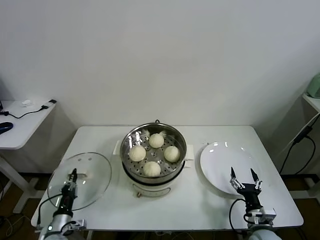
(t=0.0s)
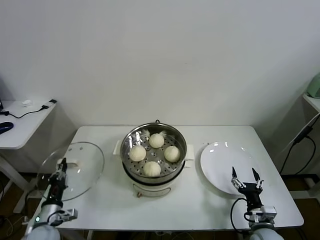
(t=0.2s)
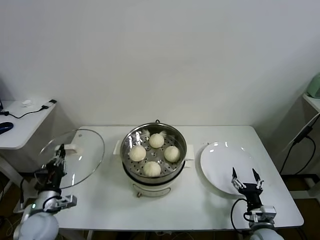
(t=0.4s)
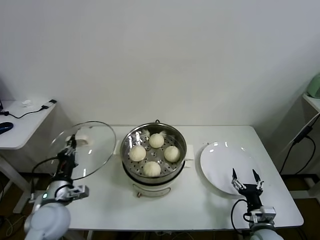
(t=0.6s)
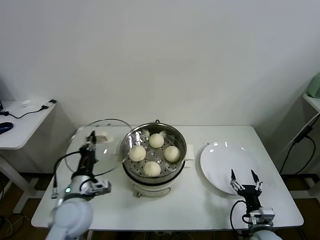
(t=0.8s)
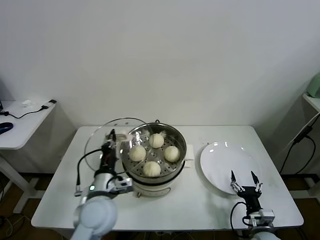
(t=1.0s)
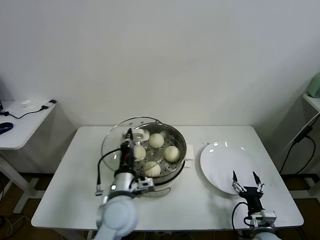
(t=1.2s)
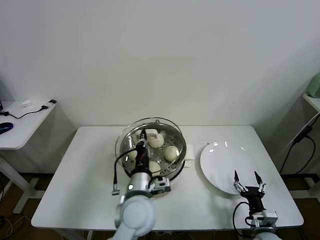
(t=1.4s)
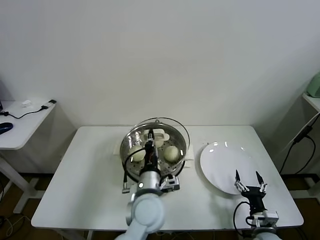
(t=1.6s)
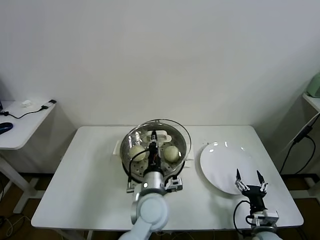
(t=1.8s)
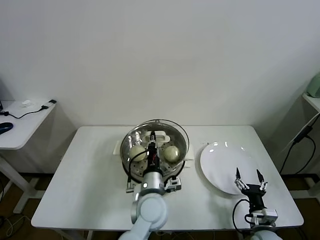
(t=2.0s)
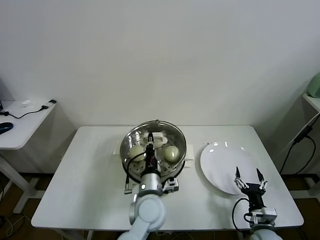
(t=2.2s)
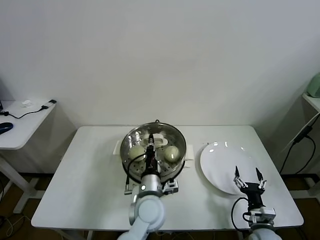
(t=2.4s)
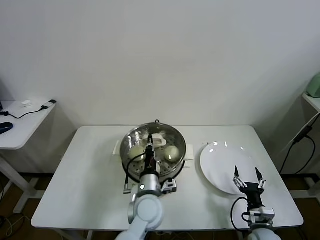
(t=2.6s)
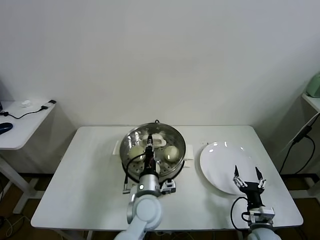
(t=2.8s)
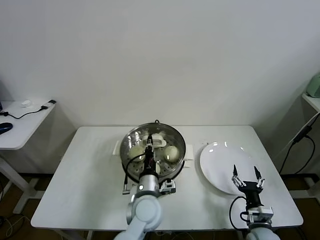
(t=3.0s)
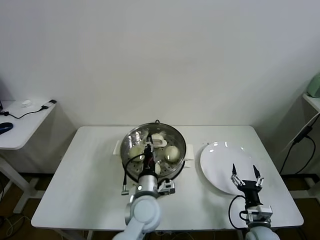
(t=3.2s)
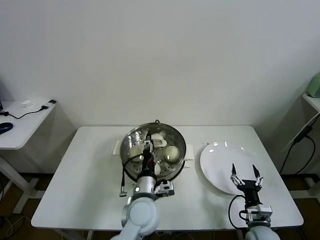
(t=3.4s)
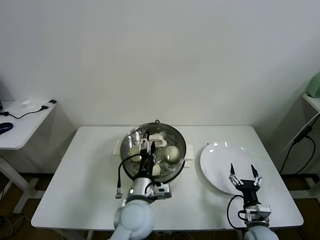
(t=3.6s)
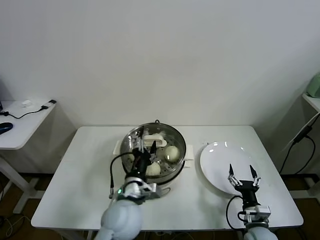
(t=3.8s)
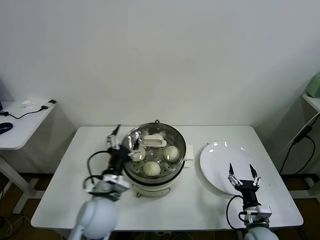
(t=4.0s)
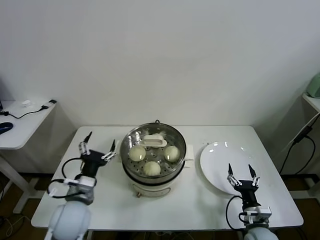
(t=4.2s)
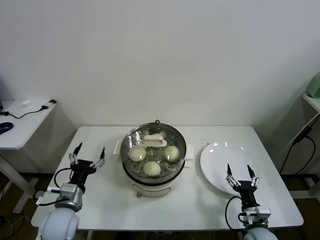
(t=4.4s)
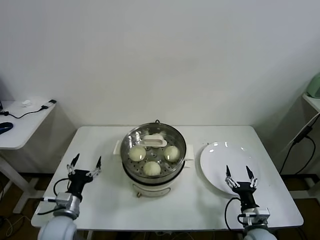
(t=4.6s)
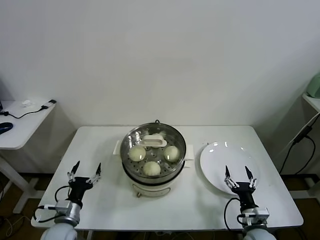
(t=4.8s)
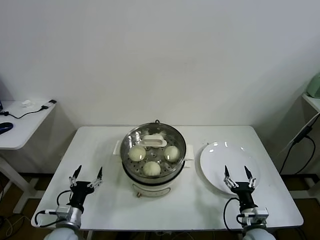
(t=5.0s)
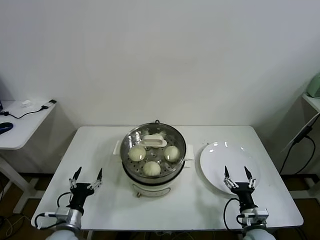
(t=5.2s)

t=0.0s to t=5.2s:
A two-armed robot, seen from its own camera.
Task of the whole recording: take steamed baozi put them in steamer.
Step, t=0.0s to t=3.2s: Place the pot lid on the steamer with left gripper.
t=0.0s to t=1.8s: The left gripper moves to the right and upward, some 40 cm.
t=1.8s to t=3.4s: The left gripper opens up.
t=3.4s to t=5.2s: The left gripper travels to the left and downward by roughly 30 cm, and opens its fingers.
